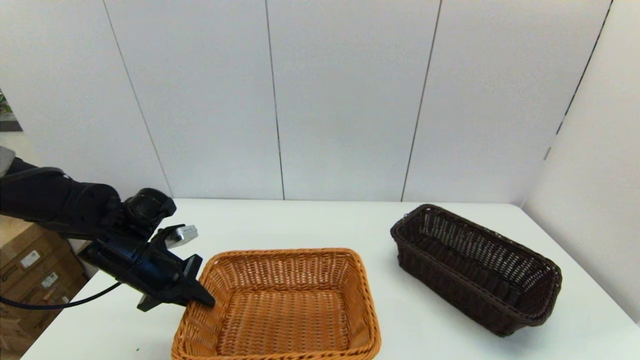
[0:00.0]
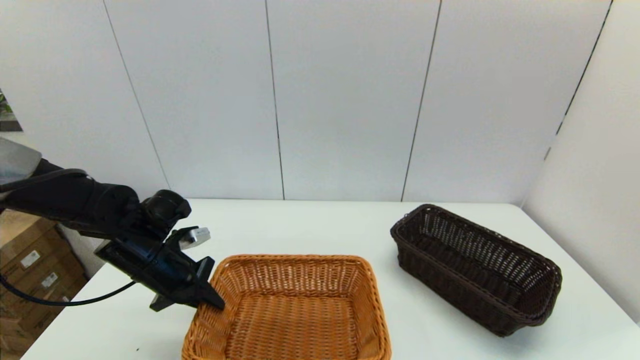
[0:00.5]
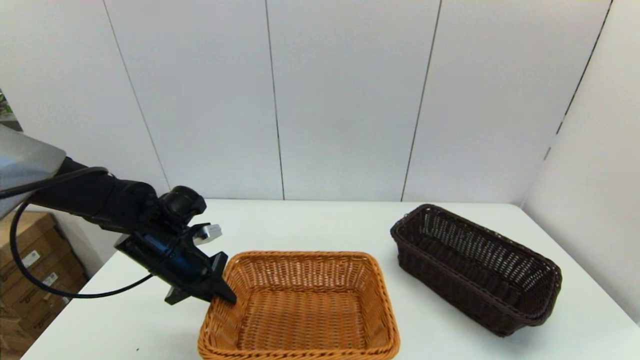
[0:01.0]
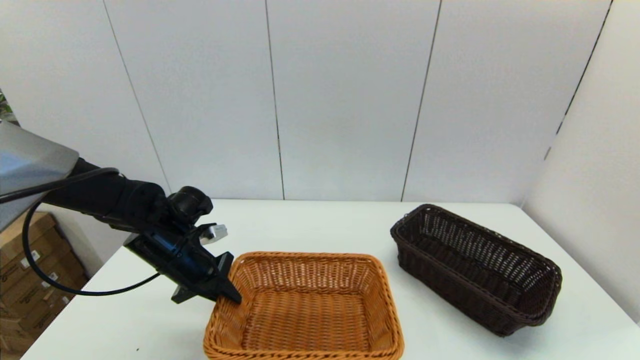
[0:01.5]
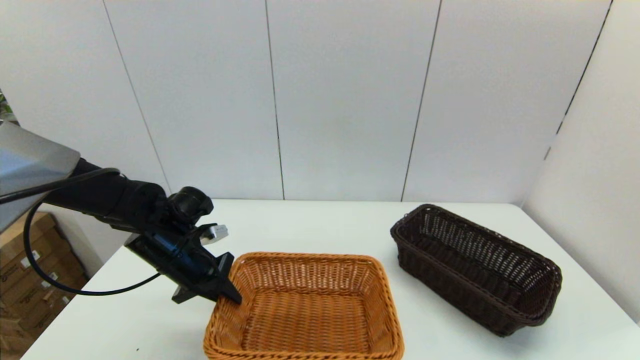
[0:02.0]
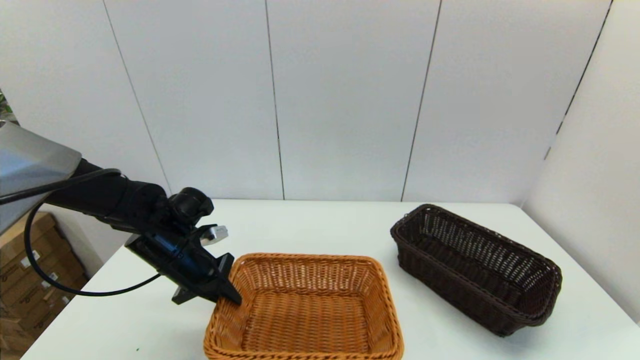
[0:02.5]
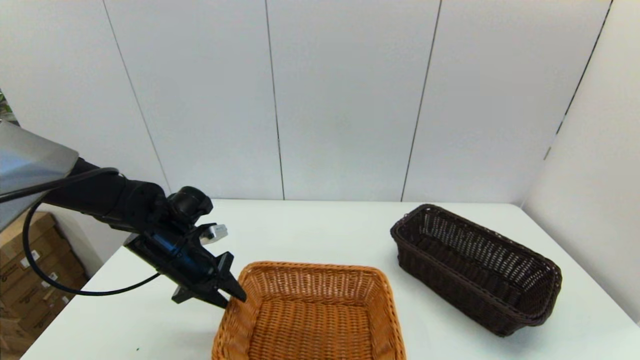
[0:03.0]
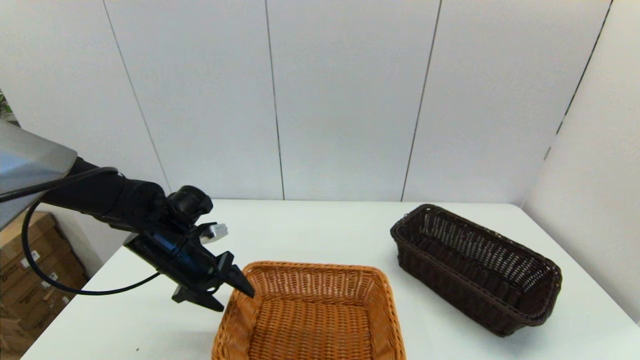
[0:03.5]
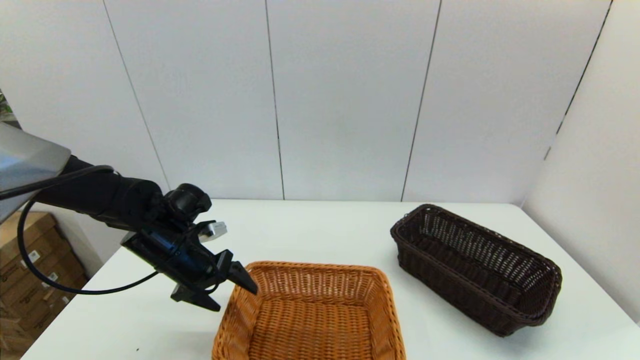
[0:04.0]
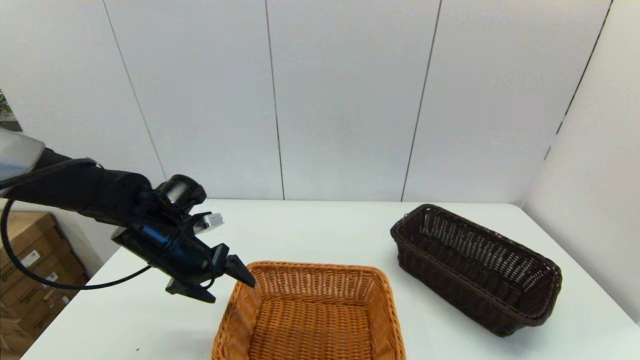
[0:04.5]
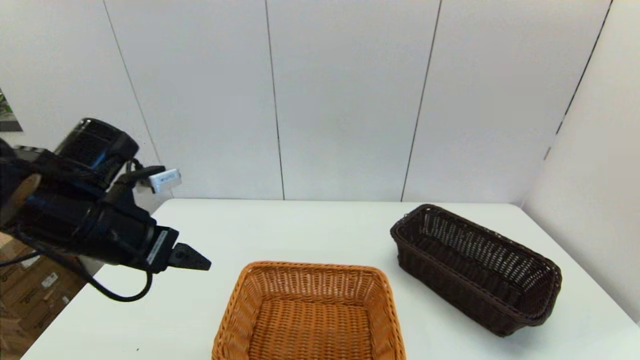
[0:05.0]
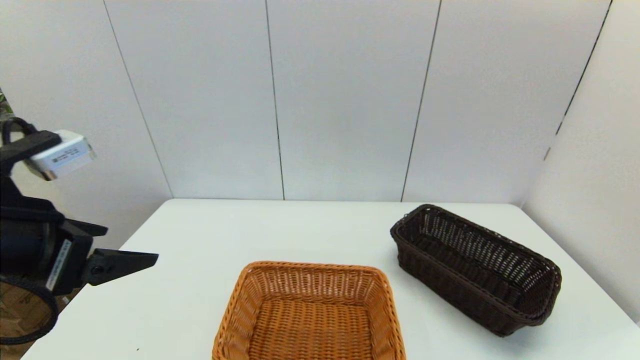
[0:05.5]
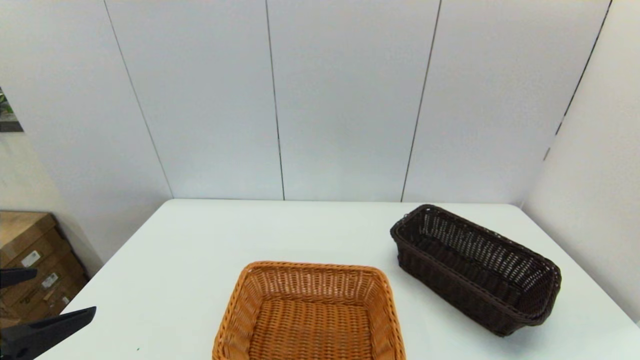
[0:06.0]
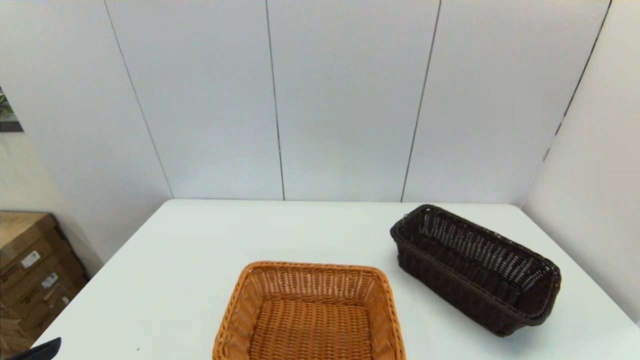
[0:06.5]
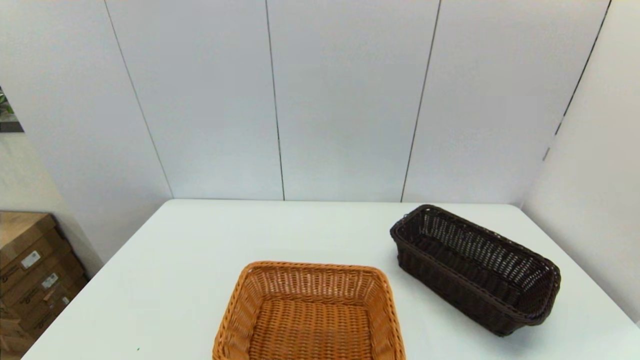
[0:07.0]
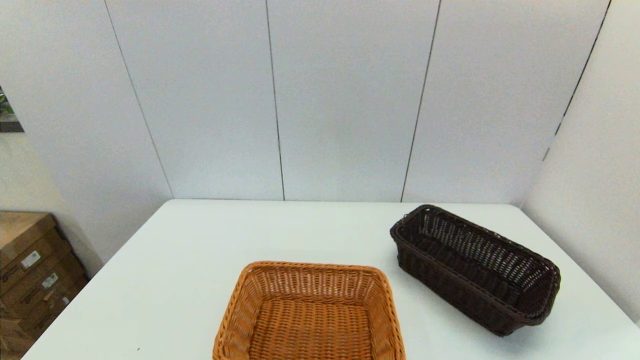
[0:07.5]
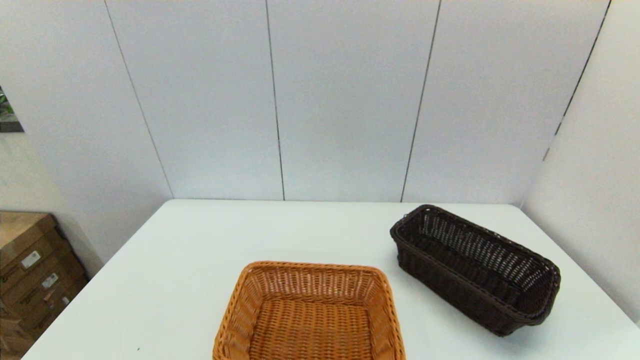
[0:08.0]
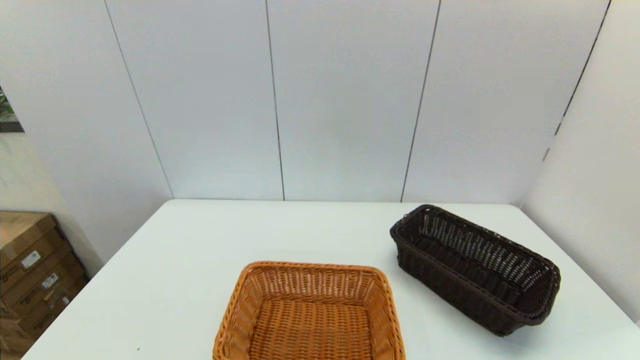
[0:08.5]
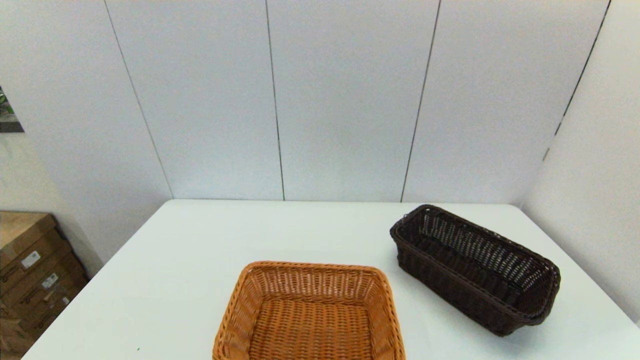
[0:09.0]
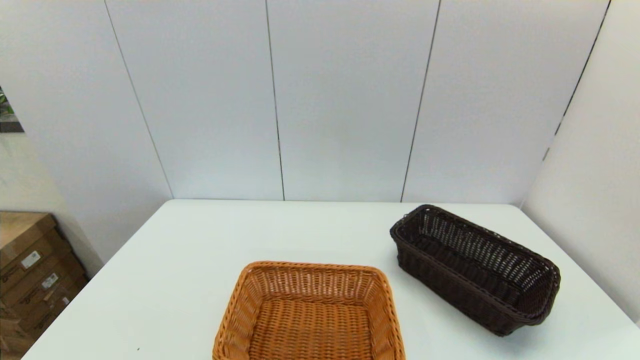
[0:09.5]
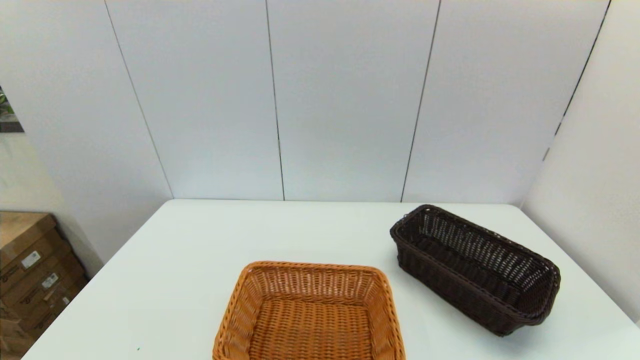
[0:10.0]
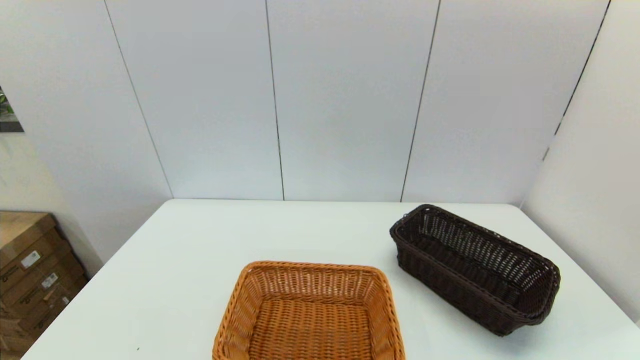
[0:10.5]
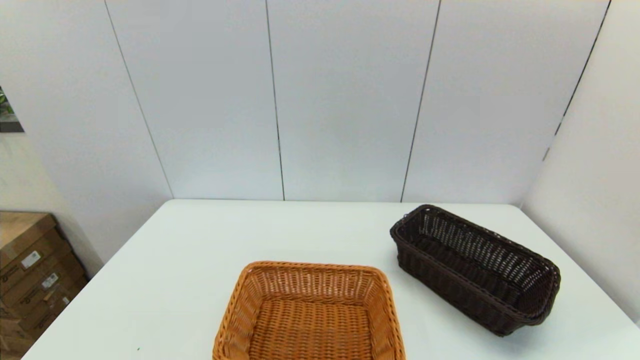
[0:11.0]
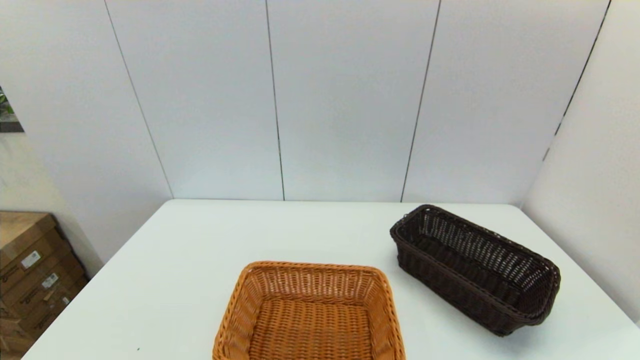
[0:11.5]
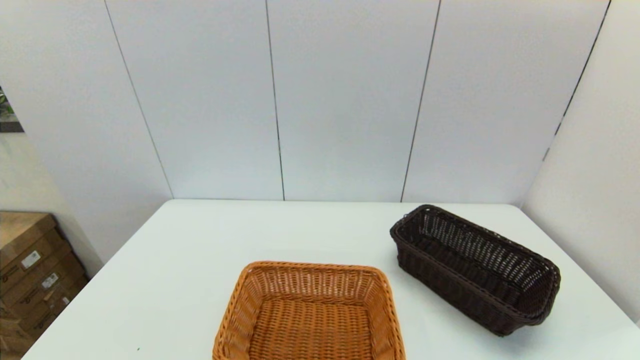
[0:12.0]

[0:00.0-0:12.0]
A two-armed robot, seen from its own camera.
Task of the whole recording: stack a basket on top of another basket.
Step, 0:00.0 to 0:04.0: Place the light basket on the middle of the table with the left gripper.
0:00.0 to 0:02.0: The left gripper changes place by about 5 cm.
0:02.0 to 0:04.0: The left gripper opens up.
0:04.0 to 0:06.0: The left gripper travels backward and upward by roughly 30 cm.
0:06.0 to 0:08.0: The left gripper heads downward and backward, covering approximately 15 cm.
0:10.0 to 0:12.0: Neither gripper changes place.

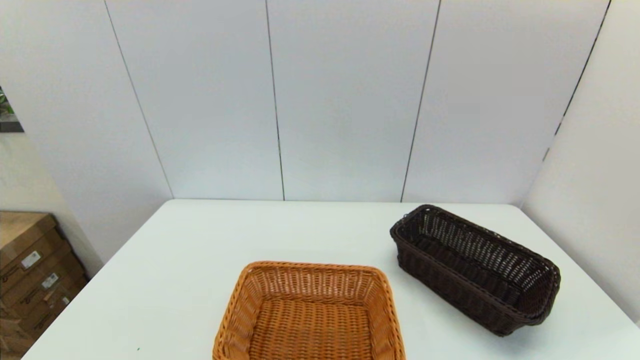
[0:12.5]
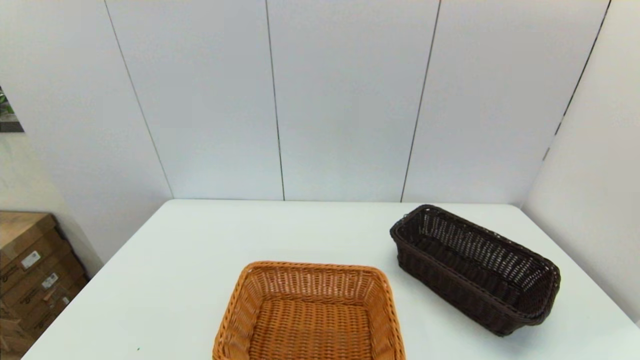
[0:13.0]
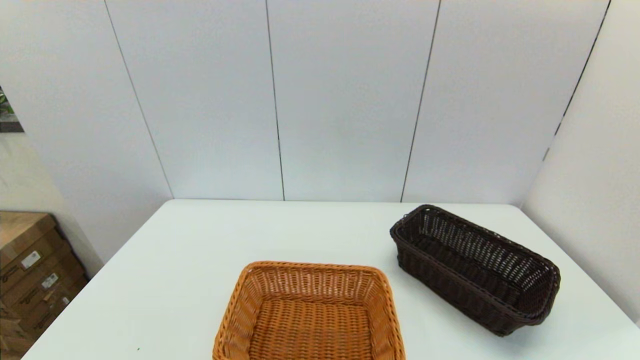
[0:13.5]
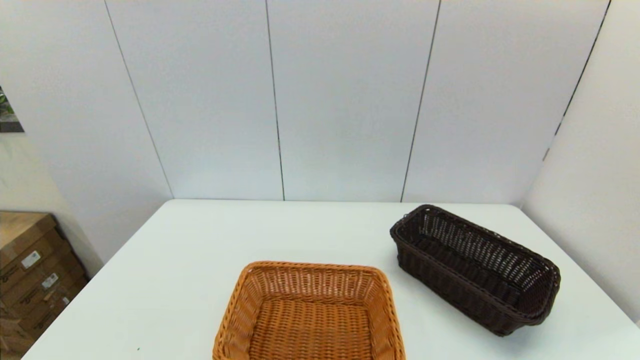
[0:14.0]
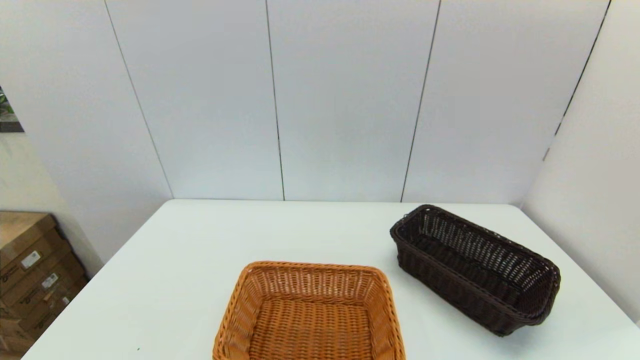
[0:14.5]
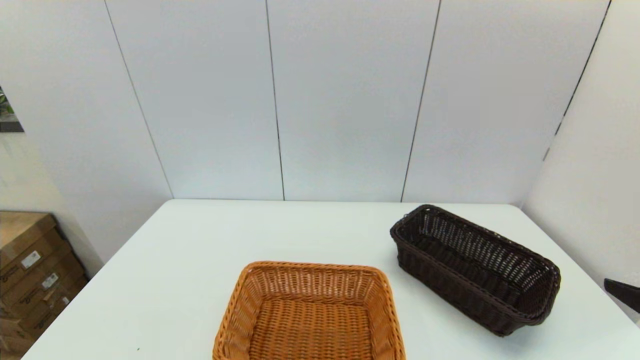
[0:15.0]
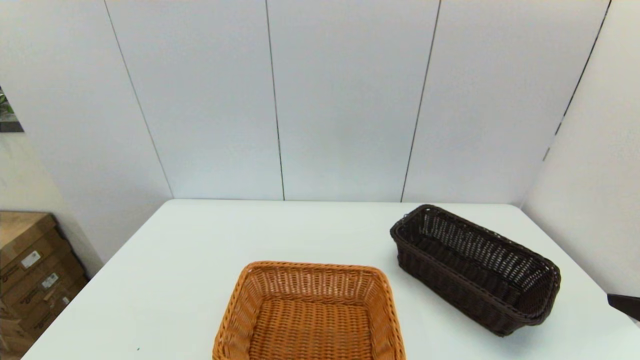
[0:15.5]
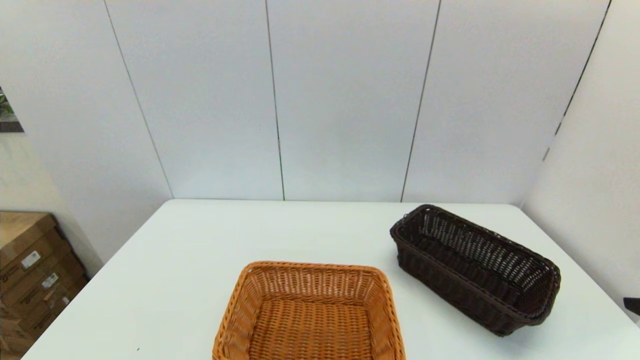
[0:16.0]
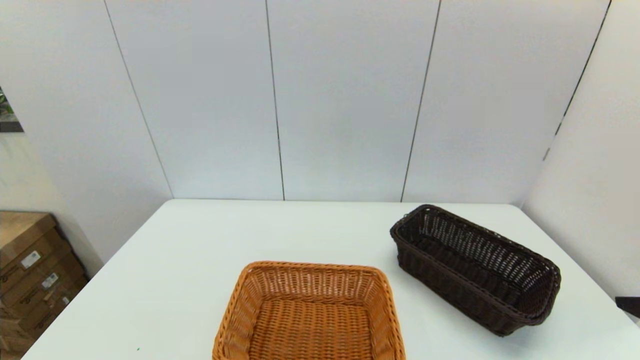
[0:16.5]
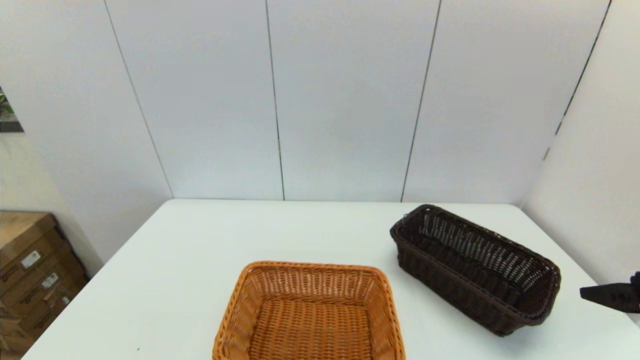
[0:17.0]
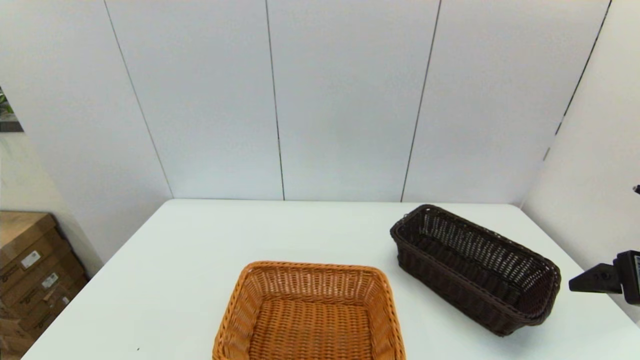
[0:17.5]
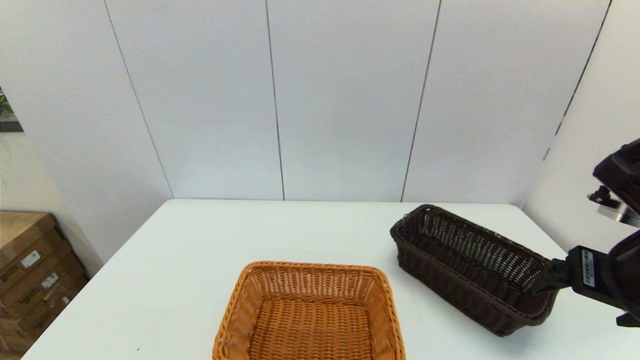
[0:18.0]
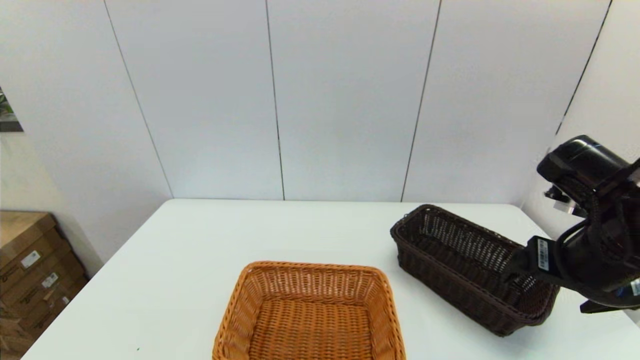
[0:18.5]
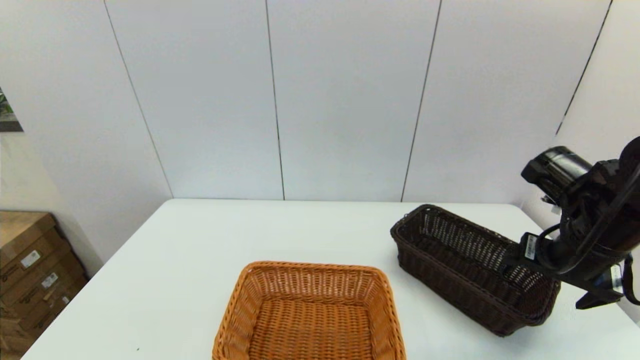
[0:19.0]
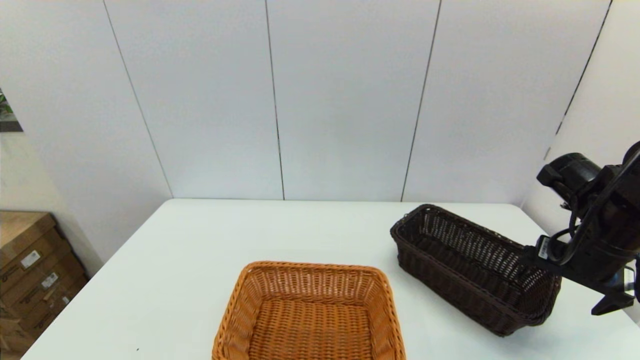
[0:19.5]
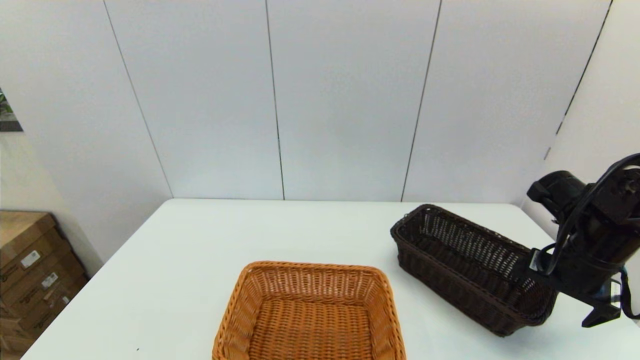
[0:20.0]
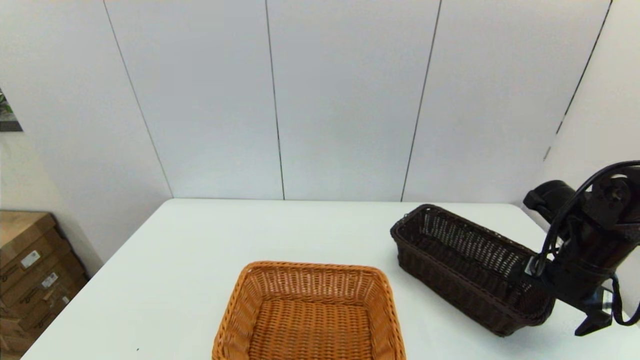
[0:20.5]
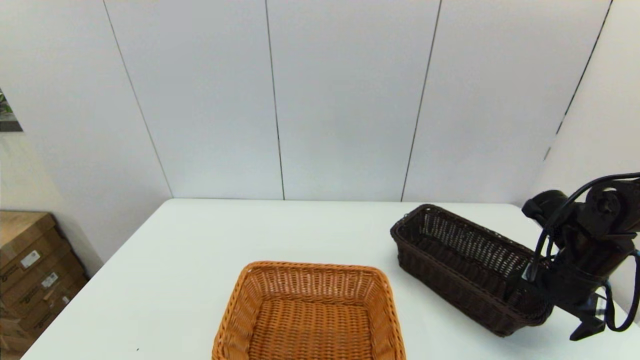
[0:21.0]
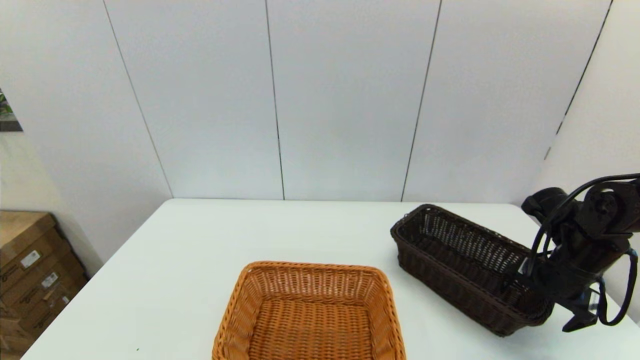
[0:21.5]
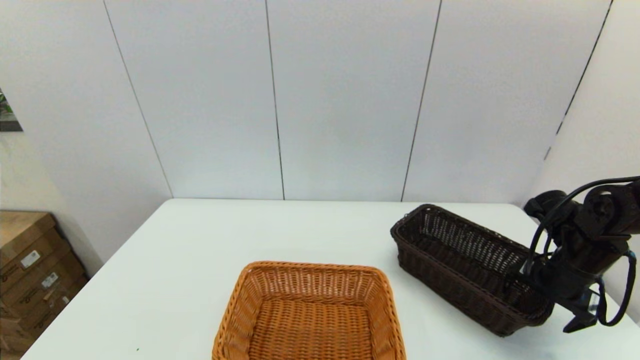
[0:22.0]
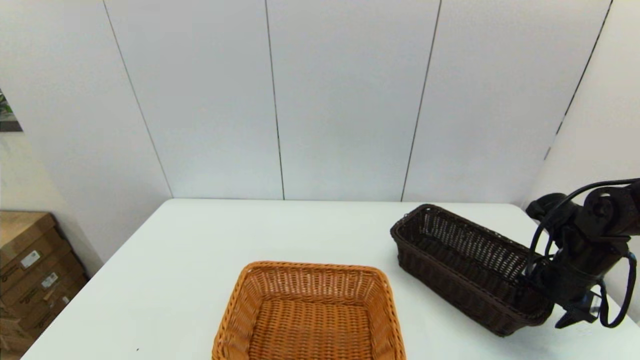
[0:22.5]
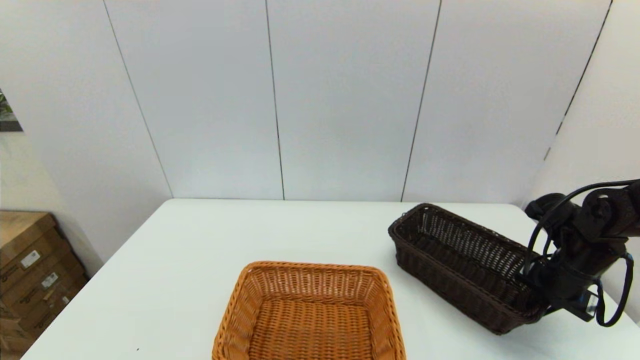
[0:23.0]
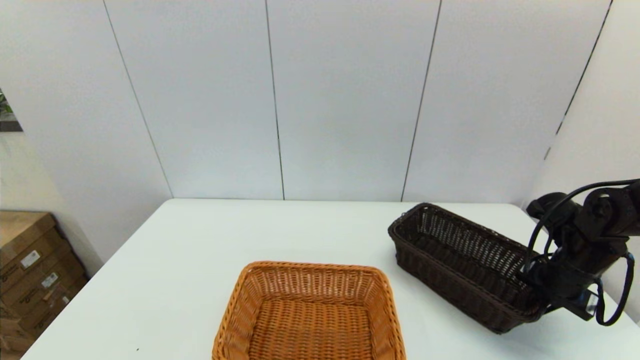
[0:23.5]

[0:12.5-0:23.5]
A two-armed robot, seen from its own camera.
Task of the whole recording: stack a basket on top of another basket.
Step, 0:12.5 to 0:23.0: Grasp the dark basket with the right gripper.
0:16.0 to 0:18.0: The right gripper shifts roughly 10 cm forward.
0:18.0 to 0:20.0: The right gripper goes some 10 cm forward and downward.
0:20.0 to 0:21.5: The grippers make only small movements.
0:21.5 to 0:23.5: The right gripper closes.
